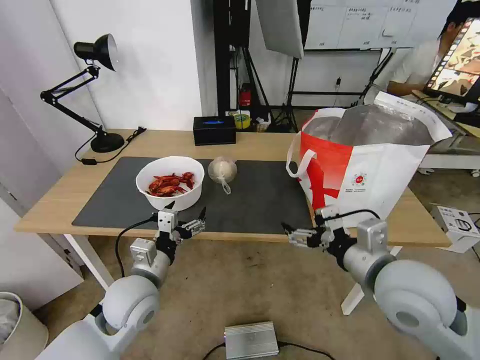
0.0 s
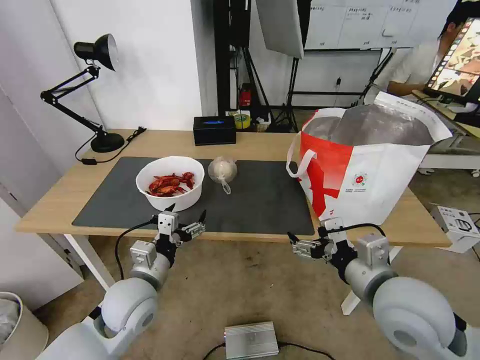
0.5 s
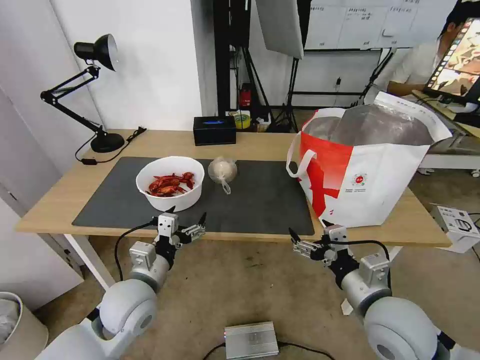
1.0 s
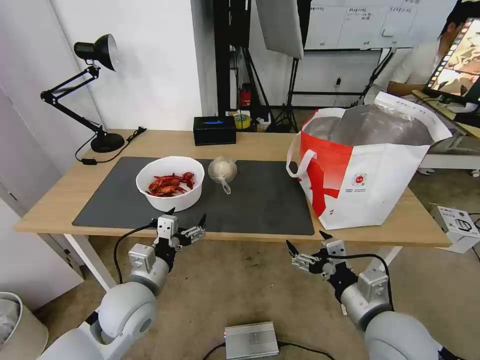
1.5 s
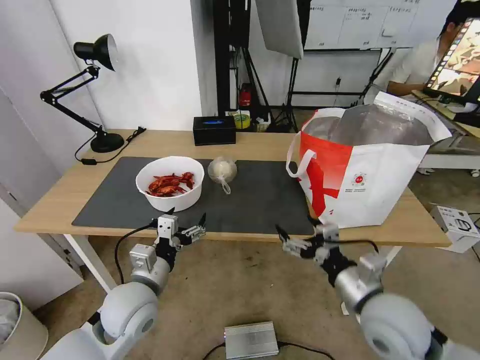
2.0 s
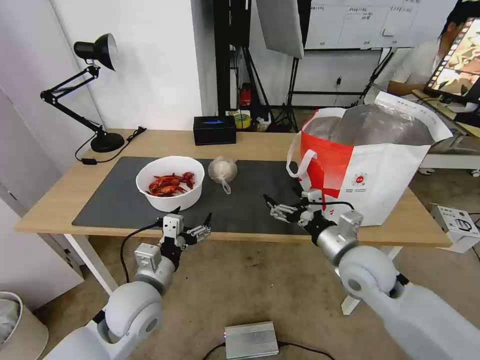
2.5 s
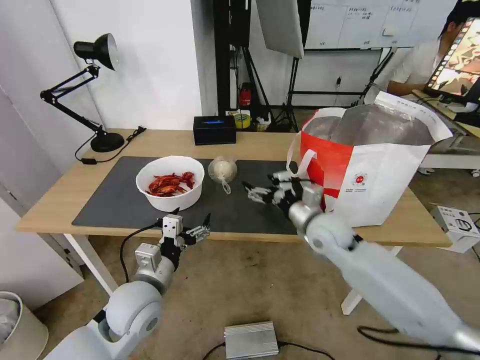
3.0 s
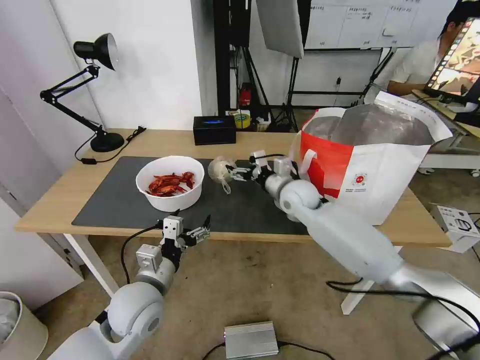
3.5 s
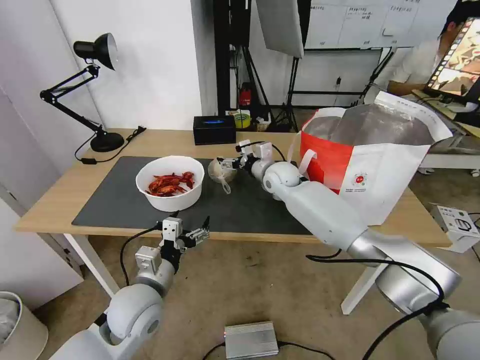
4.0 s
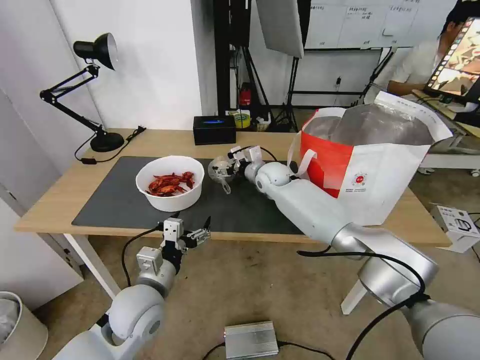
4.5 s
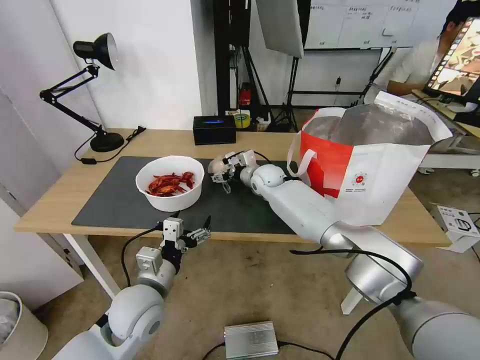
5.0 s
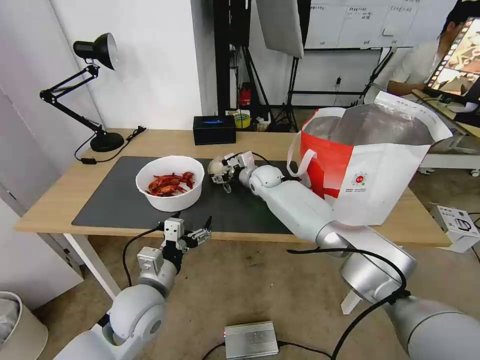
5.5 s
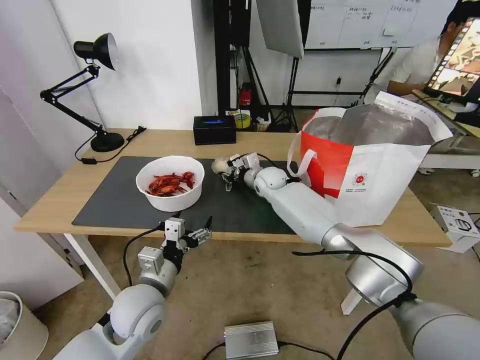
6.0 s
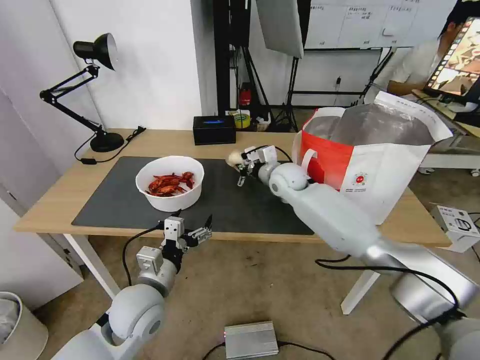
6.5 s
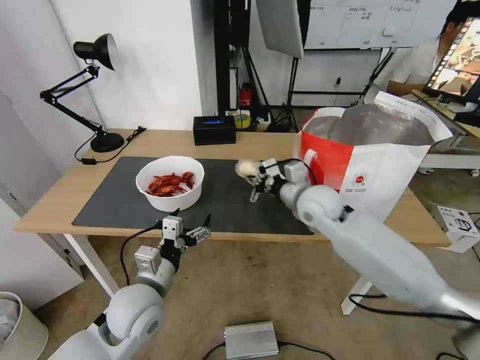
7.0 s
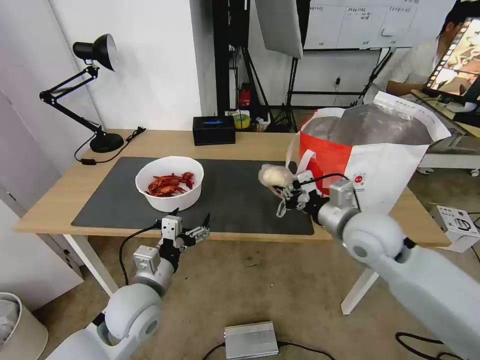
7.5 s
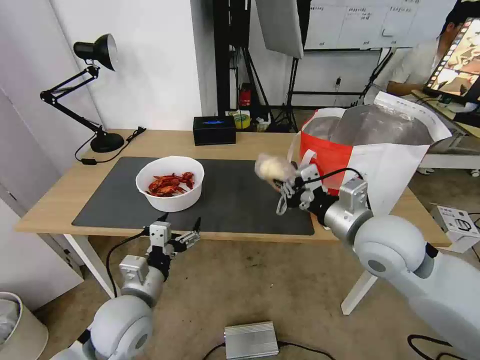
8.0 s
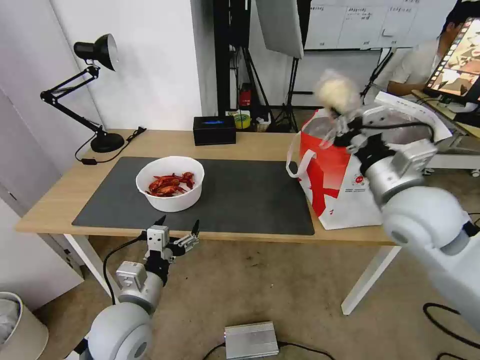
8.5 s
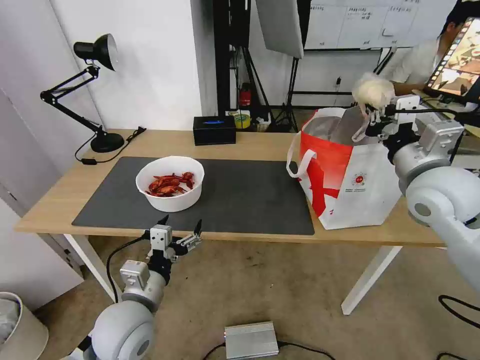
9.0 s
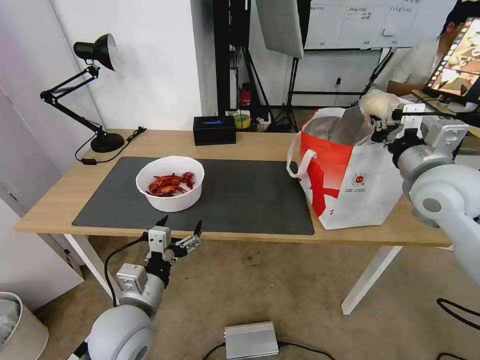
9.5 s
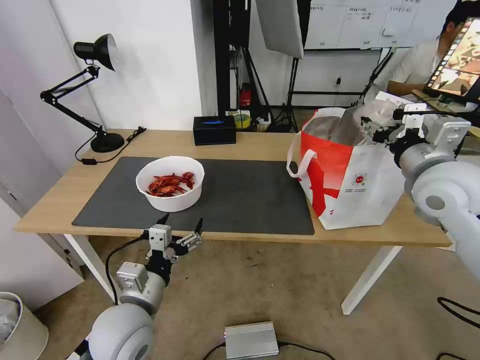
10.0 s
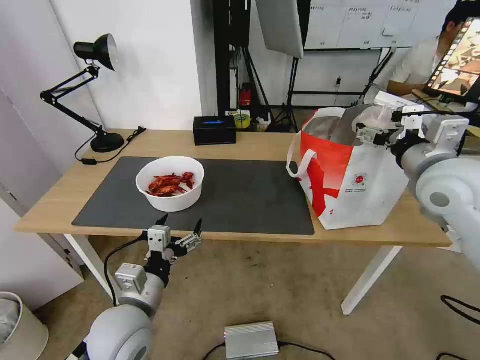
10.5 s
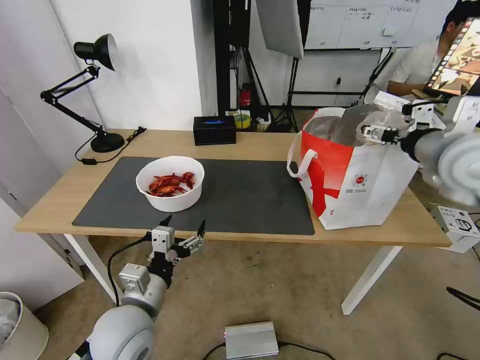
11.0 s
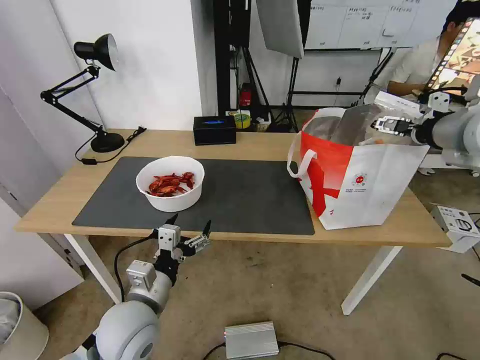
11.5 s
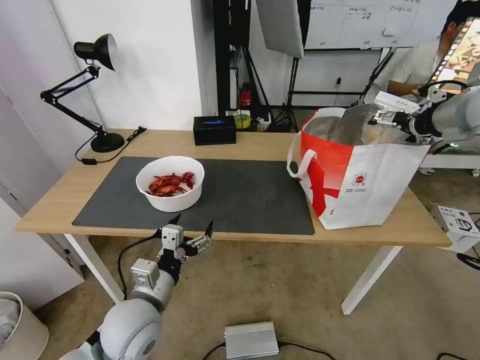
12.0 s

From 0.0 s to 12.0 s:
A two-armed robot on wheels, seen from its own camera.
Task of the whole recording: Pick up the trash from the table and place it into the takeout bag.
From 0.0 s to 2.0 s: The right gripper shifts roughly 10 cm downward.
From 2.0 s to 4.0 s: The right gripper travels forward by roughly 35 cm.
From 4.0 s to 6.0 s: The right gripper ends up about 5 cm from where it was, and closes up.
From 6.0 s to 8.0 s: The right gripper travels backward, upward and to the right by some 35 cm, and closes up.
From 8.0 s to 10.0 s: The right gripper travels to the right, upward and forward by some 15 cm, and opens up.
From 10.0 s to 12.0 s: The right gripper moves upward, approximately 15 cm.

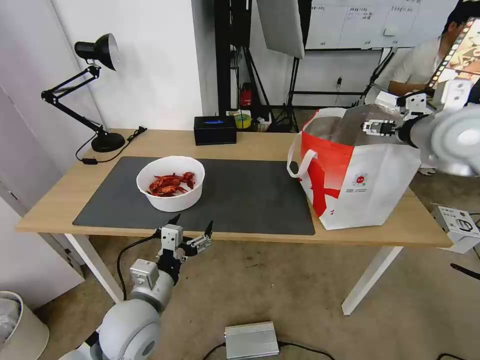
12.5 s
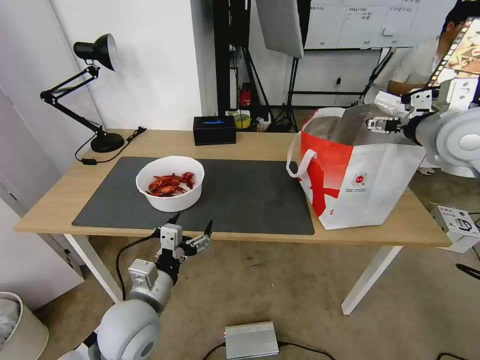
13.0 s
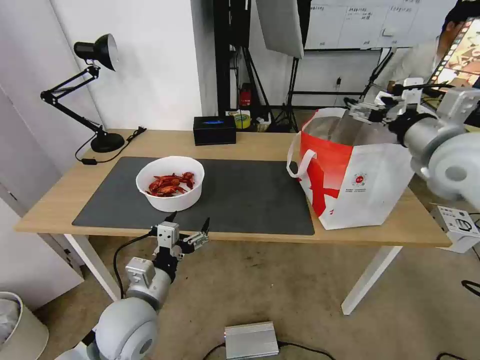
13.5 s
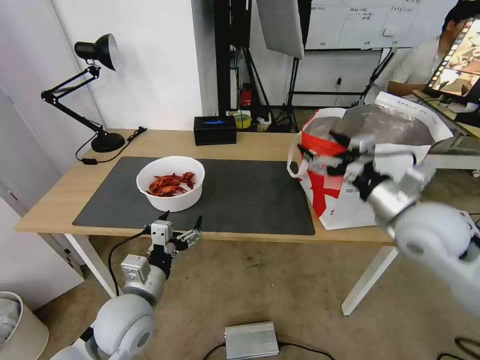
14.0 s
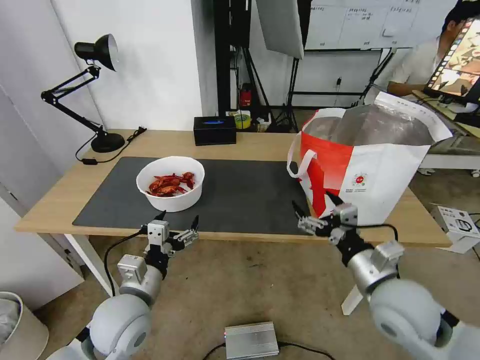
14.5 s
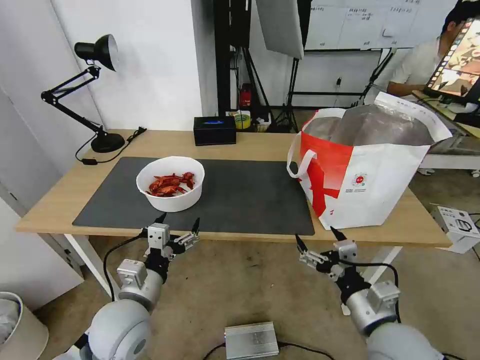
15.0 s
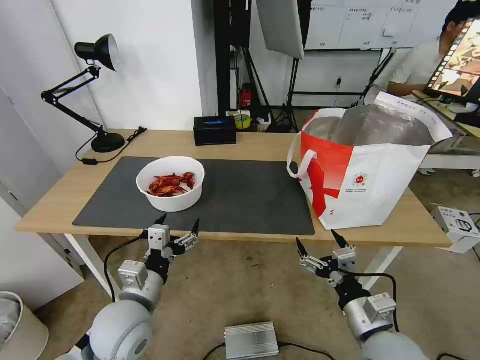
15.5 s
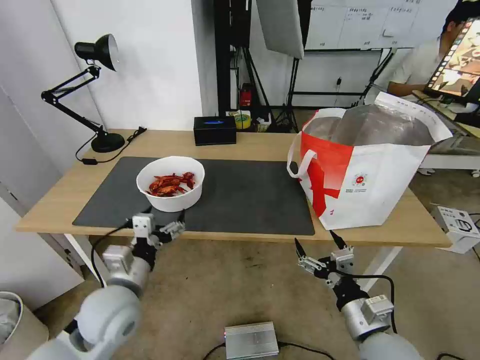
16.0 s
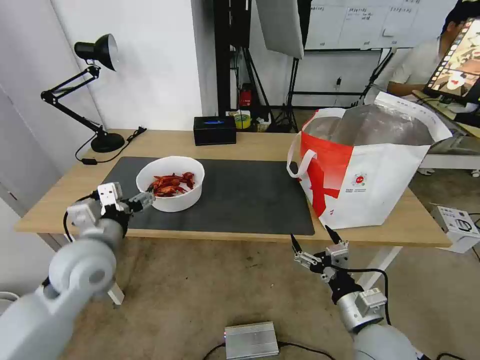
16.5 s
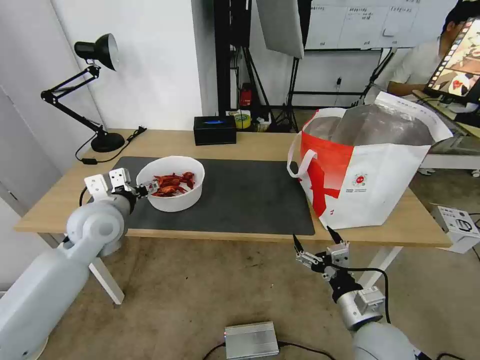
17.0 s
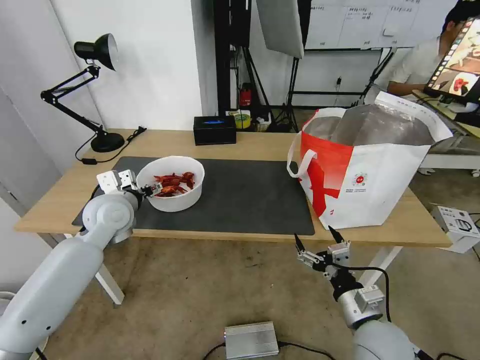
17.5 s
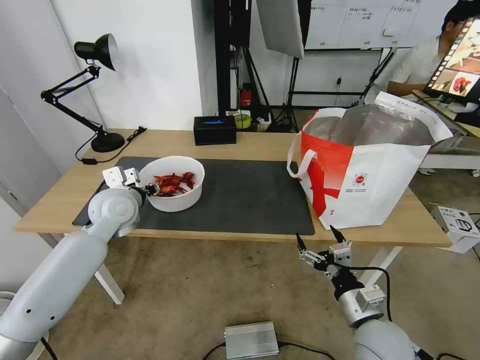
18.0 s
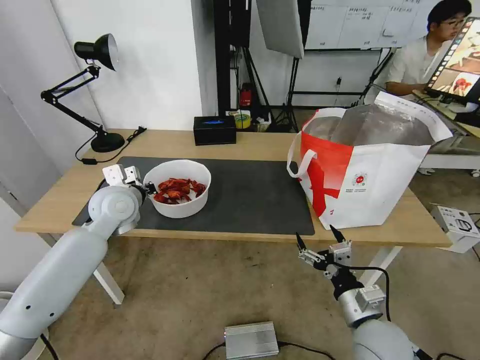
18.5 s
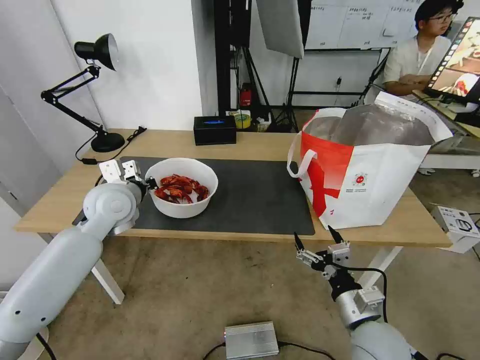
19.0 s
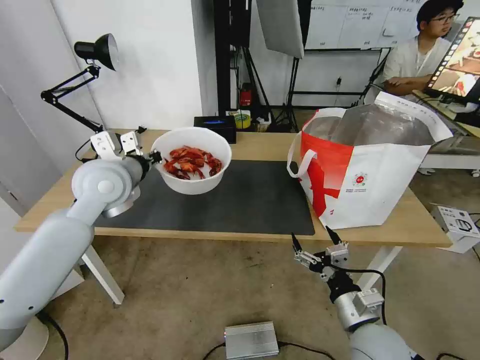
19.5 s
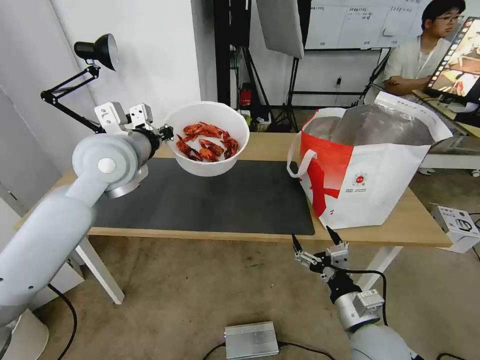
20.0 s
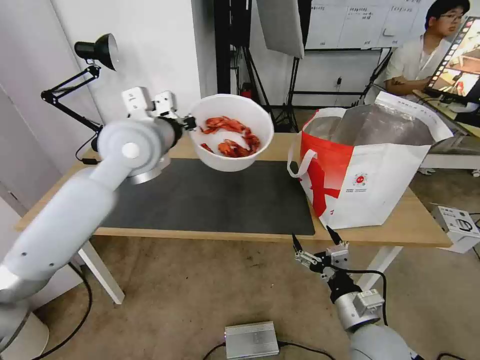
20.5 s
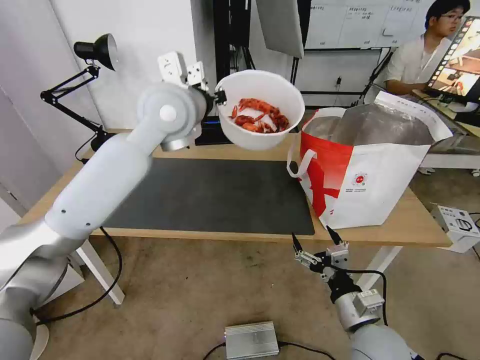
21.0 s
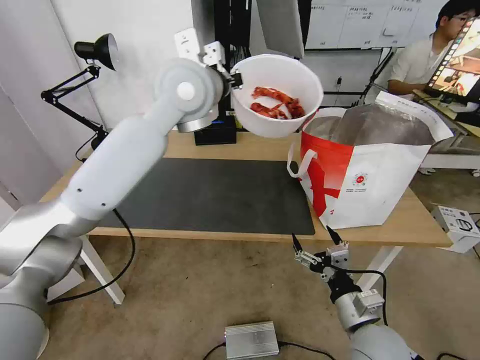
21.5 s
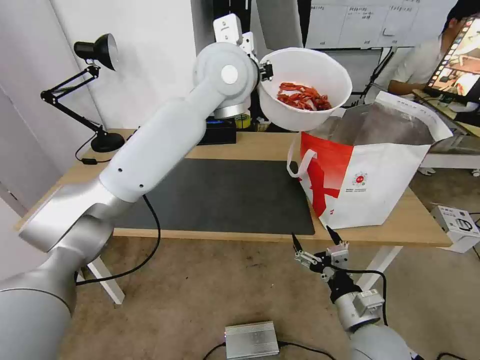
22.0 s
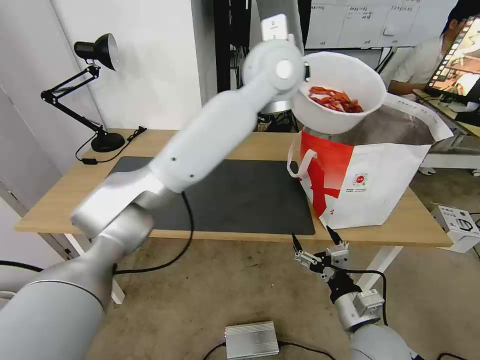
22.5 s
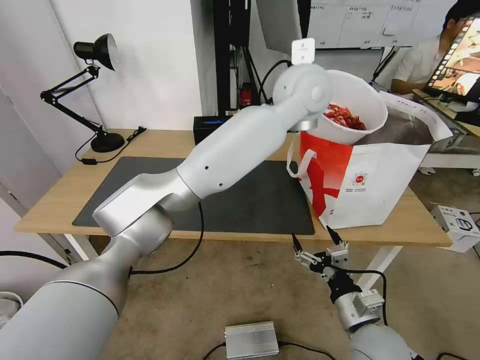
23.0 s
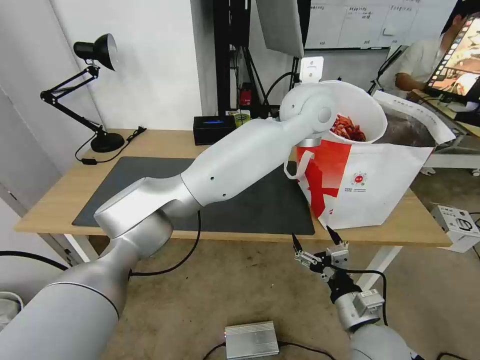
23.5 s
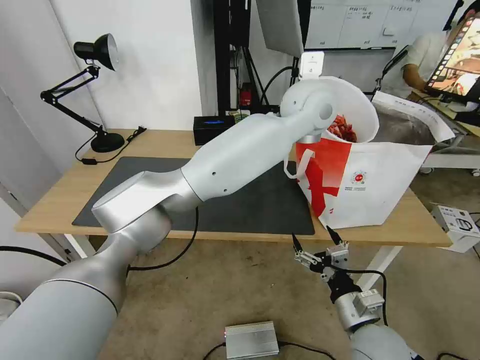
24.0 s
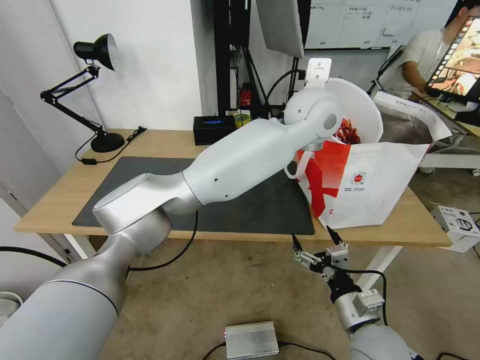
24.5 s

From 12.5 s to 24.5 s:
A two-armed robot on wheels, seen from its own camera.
Task of the whole recording: Pick up the trash from the table and place it into the takeout bag.
From 12.5 s to 14.5 s: The right gripper heads downward and backward, covering some 30 cm.
From 14.5 s to 16.5 s: The right gripper goes some 10 cm downward and backward. The left gripper goes roughly 10 cm upward, forward and to the left.
From 16.5 s to 18.5 s: The left gripper shifts approximately 15 cm forward, and closes up.
From 18.5 s to 20.5 s: The left gripper heads upward and to the right, covering roughly 20 cm.
From 20.5 s to 22.5 s: The left gripper moves to the right, roughly 25 cm.
From 22.5 s to 24.5 s: The left gripper heads to the right and downward, covering about 10 cm.

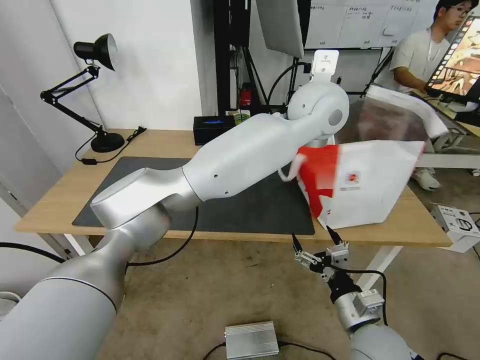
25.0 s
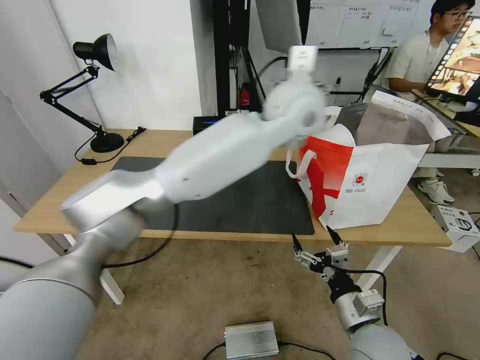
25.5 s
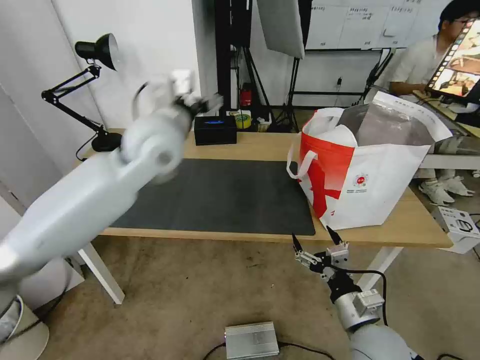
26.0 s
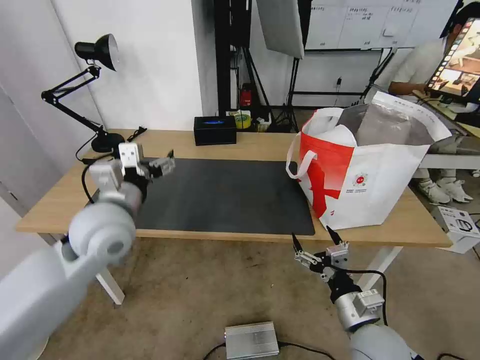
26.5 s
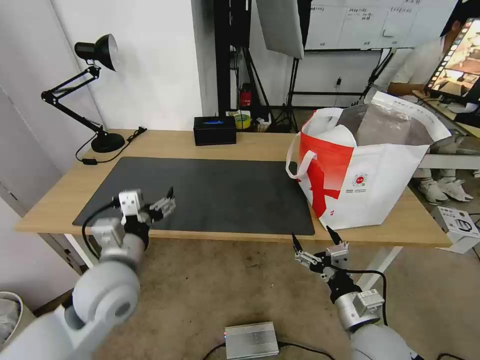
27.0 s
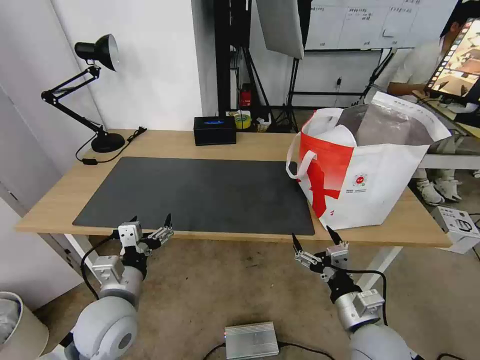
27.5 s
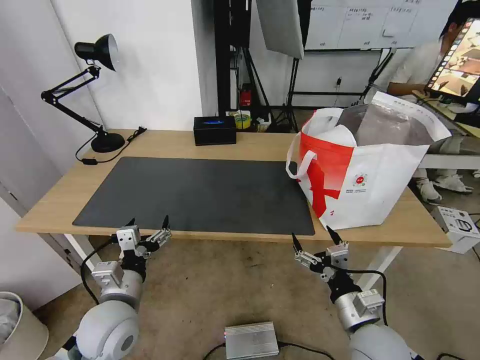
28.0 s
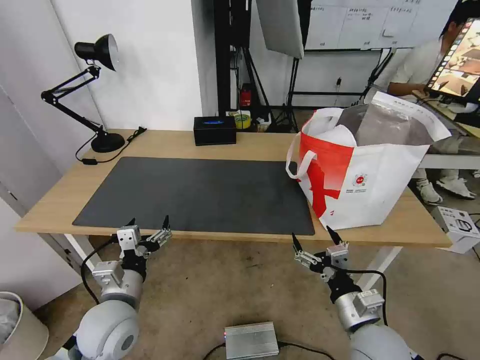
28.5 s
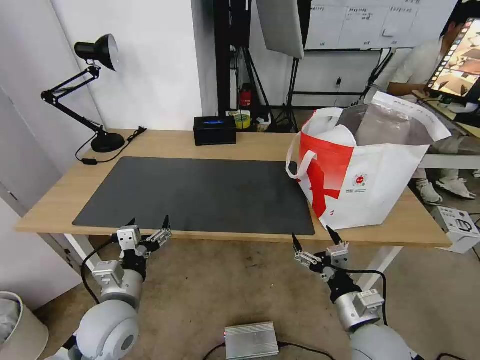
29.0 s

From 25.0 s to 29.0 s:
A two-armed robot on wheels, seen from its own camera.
Task of the whole recording: Pick up the trash from the table and place it into the takeout bag.
From 25.0 s to 27.0 s: The left gripper is displaced to the left, backward and downward by some 50 cm, and opens its fingers.
From 27.0 s to 29.0 s: The left gripper moves downward, some 10 cm.
